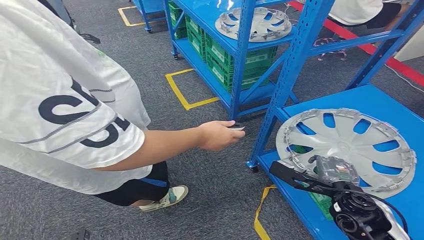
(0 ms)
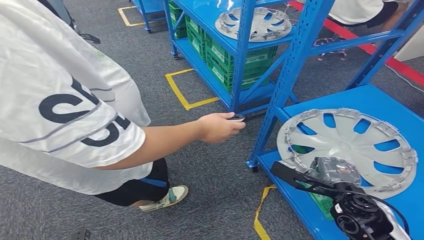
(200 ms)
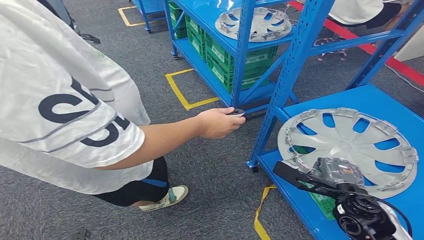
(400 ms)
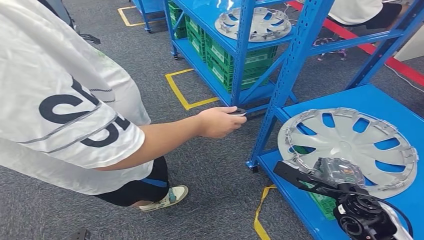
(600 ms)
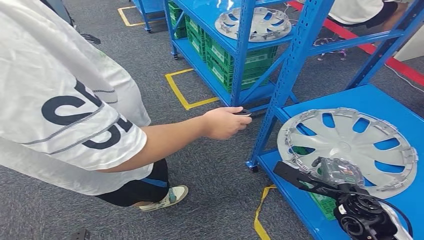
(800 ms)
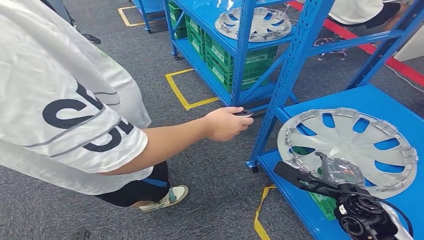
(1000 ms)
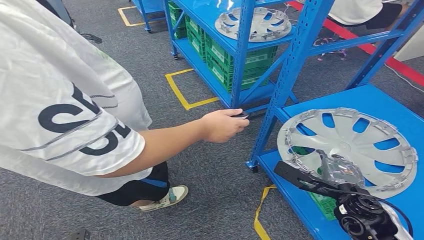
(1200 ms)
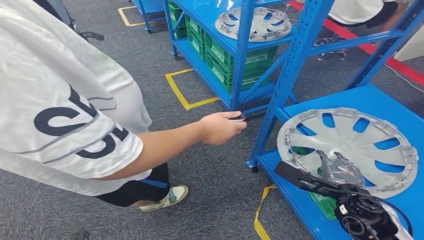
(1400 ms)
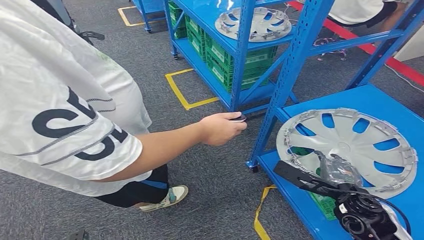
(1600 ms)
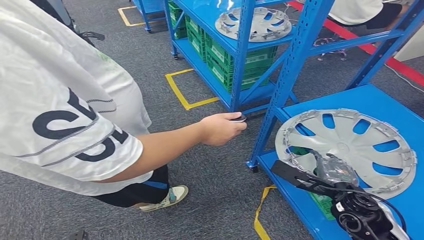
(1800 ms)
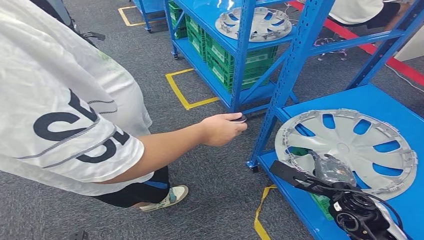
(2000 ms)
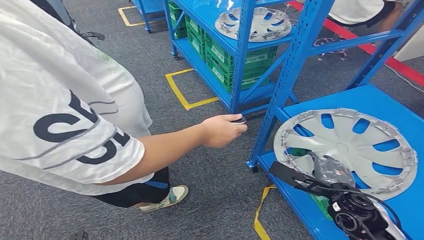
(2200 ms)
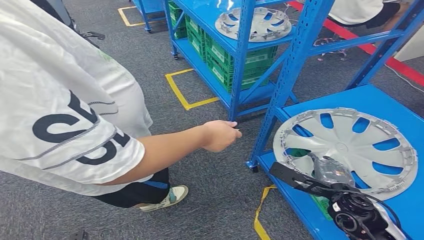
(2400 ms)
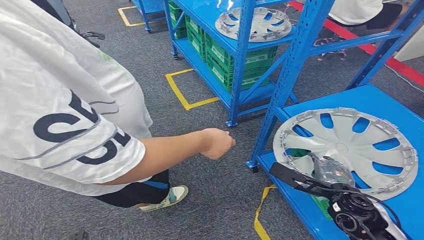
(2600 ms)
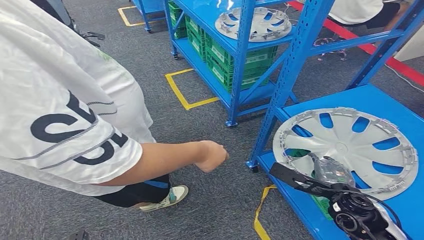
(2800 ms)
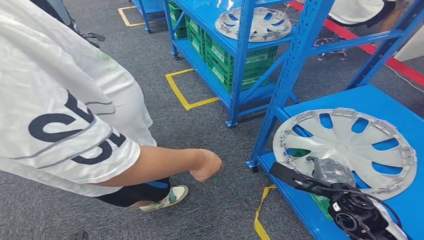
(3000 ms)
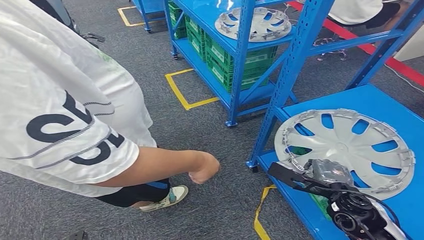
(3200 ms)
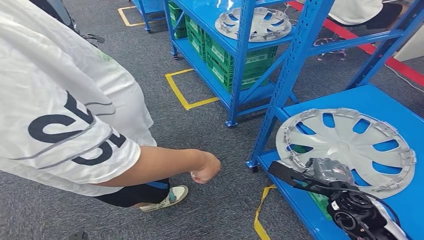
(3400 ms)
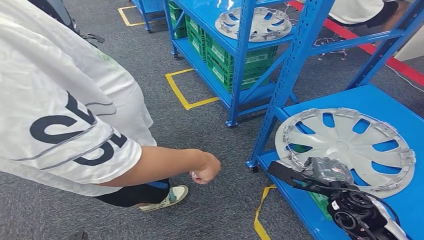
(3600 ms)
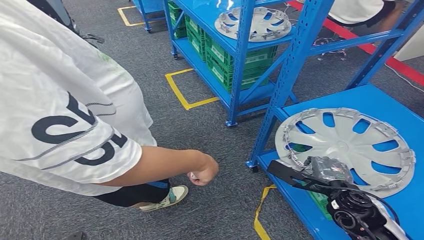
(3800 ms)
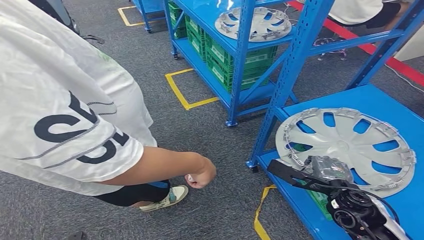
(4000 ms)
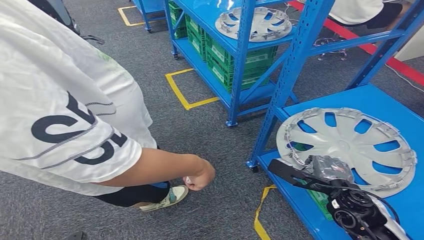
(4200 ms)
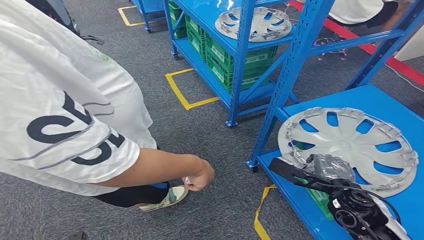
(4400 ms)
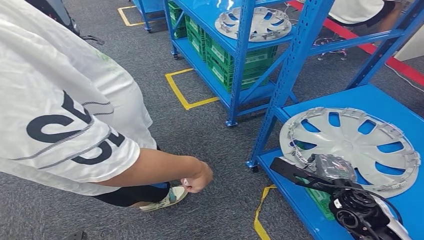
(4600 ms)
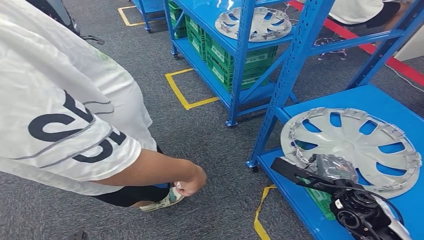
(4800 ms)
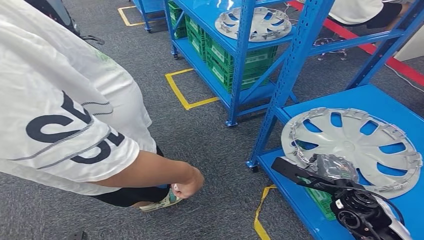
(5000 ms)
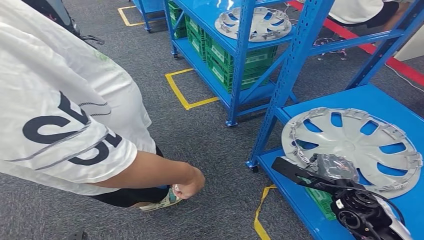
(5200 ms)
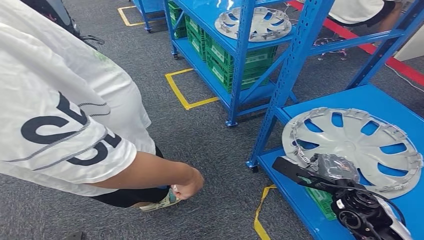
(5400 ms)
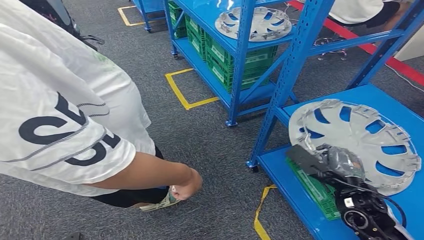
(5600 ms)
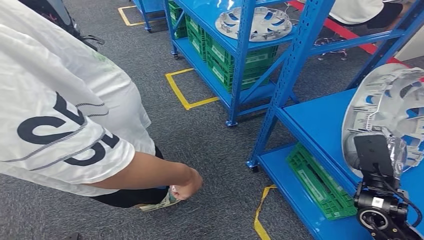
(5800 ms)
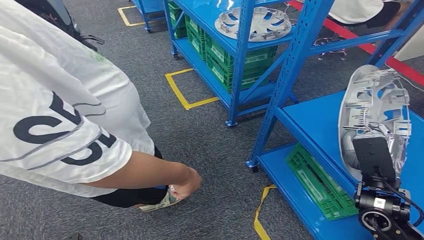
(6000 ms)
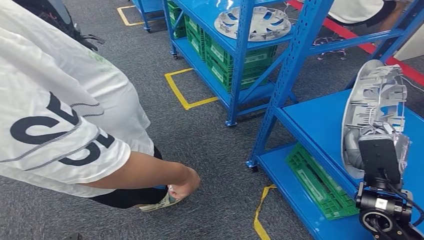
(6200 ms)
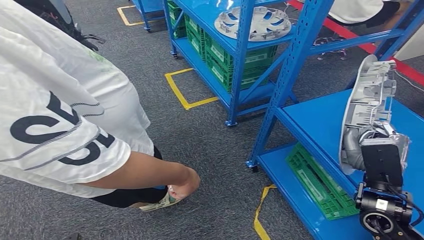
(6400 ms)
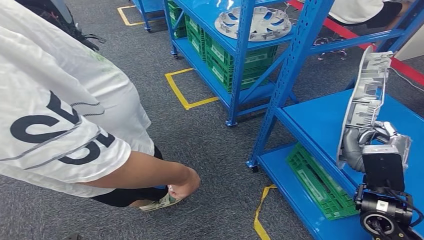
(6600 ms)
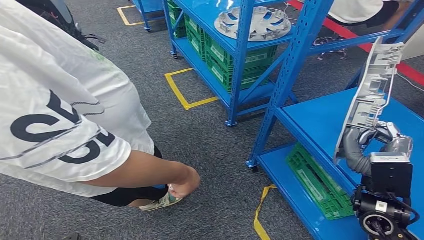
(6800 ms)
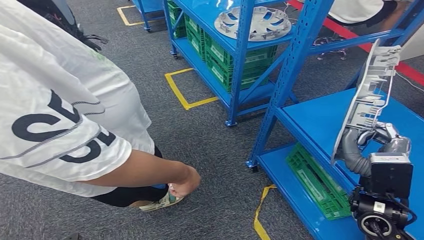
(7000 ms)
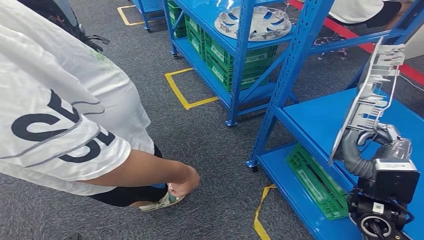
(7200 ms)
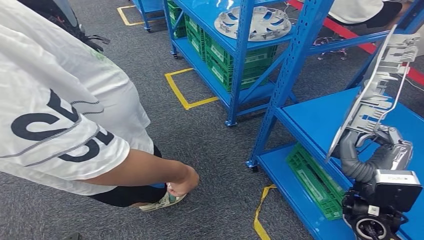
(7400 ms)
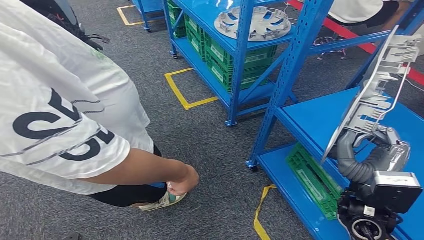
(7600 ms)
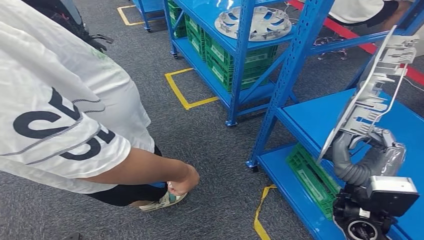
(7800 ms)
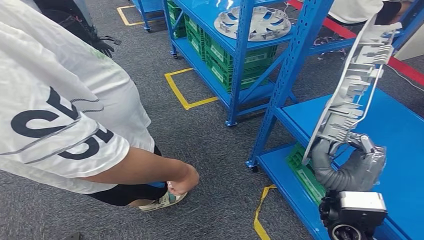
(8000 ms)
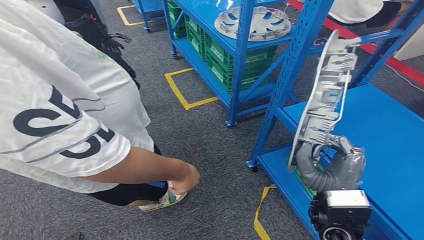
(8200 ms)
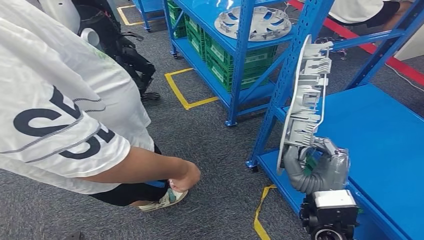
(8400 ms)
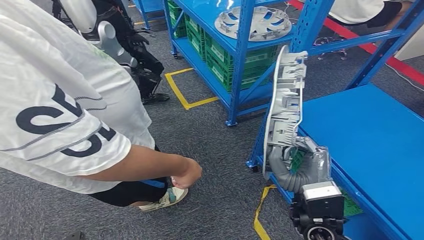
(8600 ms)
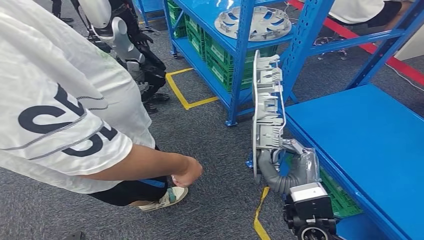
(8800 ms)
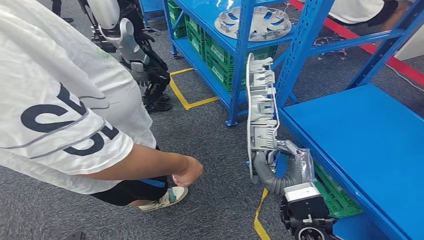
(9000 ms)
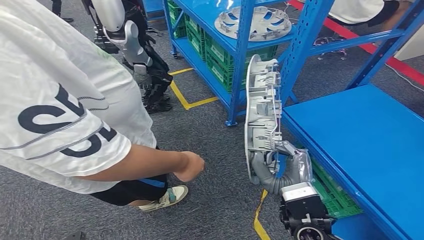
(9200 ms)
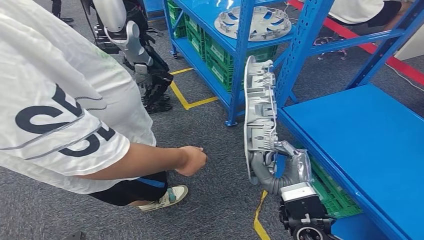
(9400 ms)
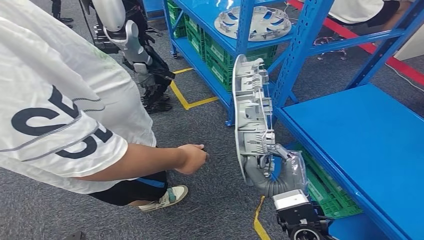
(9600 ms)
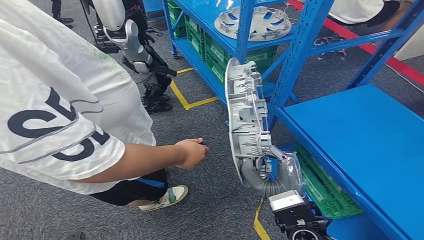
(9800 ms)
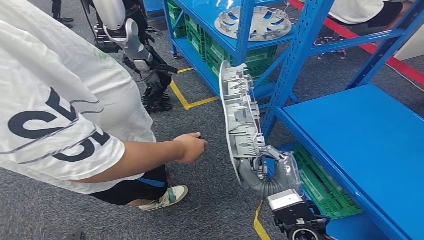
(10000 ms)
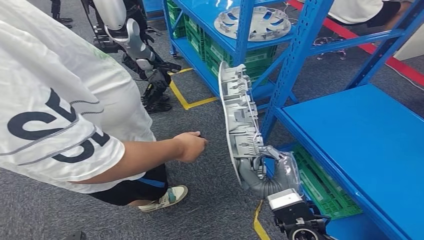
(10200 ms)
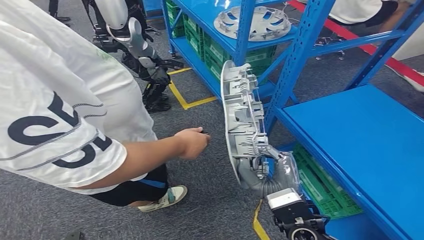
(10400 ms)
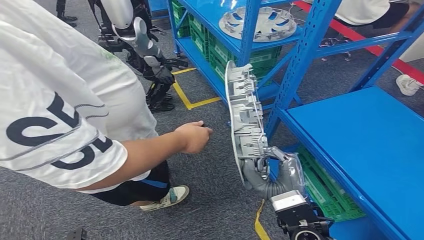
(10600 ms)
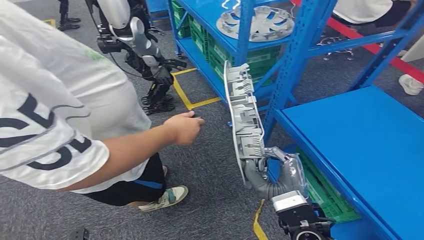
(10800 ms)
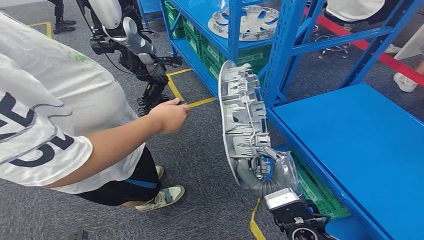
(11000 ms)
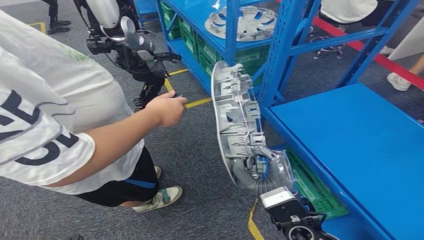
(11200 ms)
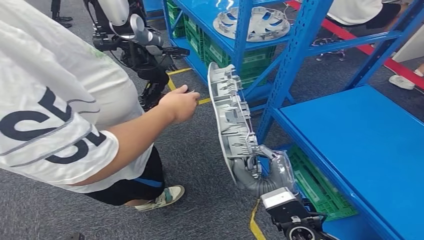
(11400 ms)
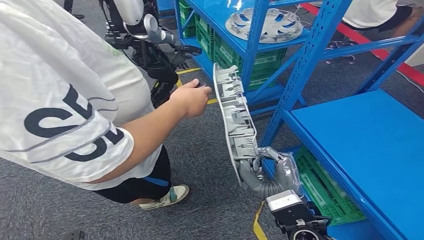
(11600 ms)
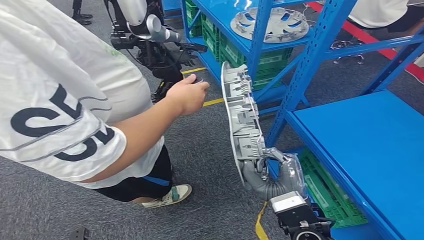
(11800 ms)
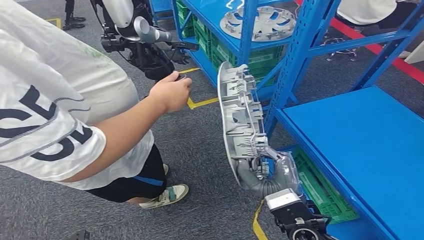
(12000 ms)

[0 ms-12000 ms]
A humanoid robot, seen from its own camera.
Step, 0 ms to 9000 ms: Pick up the small parts from the shelf.
0 ms to 1600 ms: Both hands stay put.
1600 ms to 3000 ms: The hands make only small movements.
3000 ms to 4400 ms: Neither hand changes place.

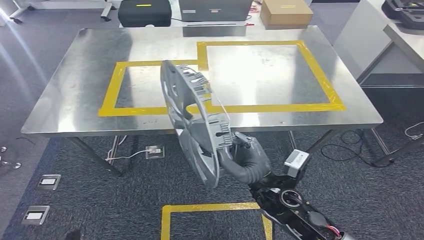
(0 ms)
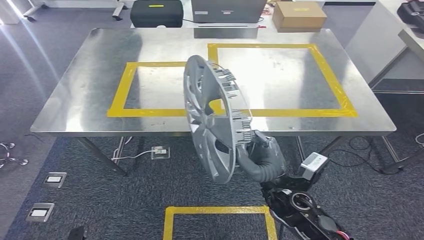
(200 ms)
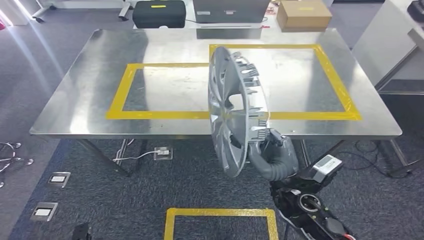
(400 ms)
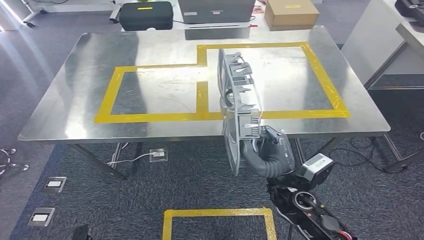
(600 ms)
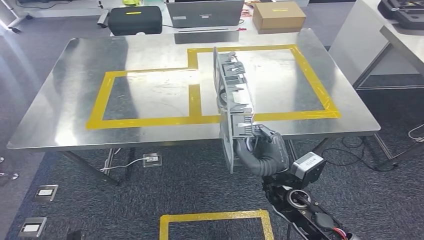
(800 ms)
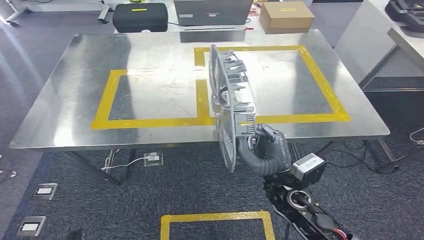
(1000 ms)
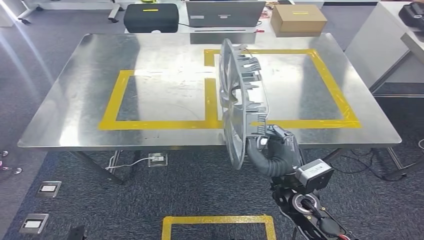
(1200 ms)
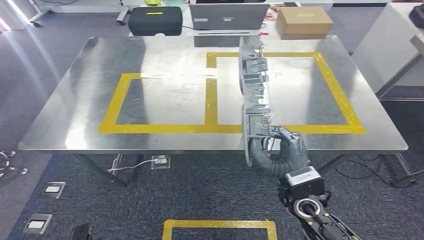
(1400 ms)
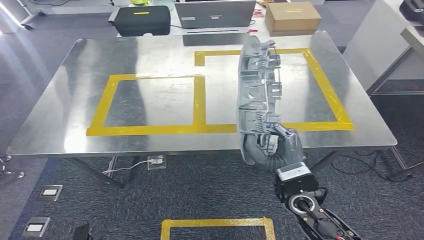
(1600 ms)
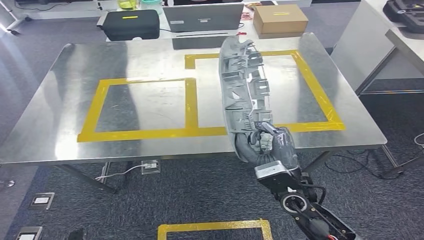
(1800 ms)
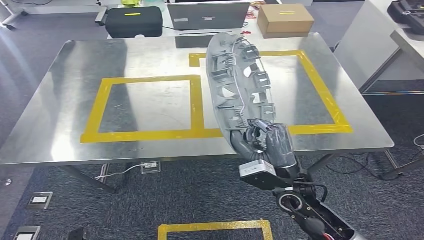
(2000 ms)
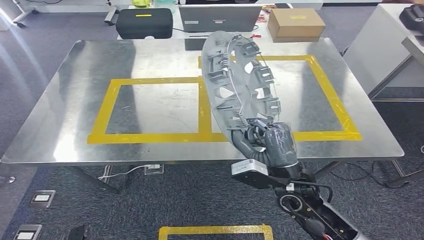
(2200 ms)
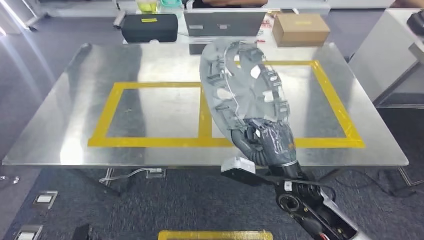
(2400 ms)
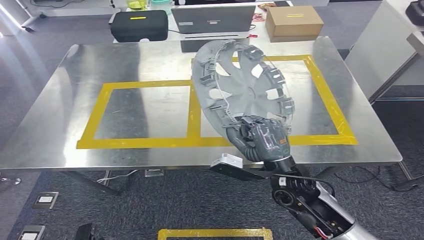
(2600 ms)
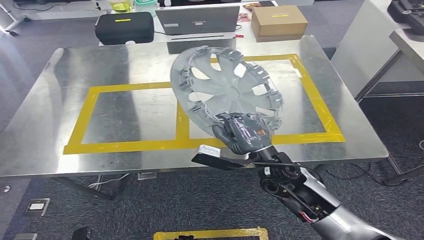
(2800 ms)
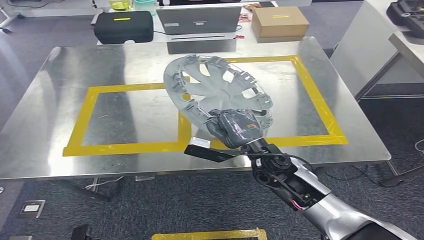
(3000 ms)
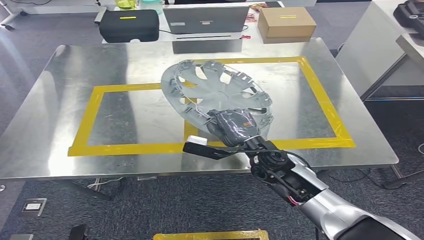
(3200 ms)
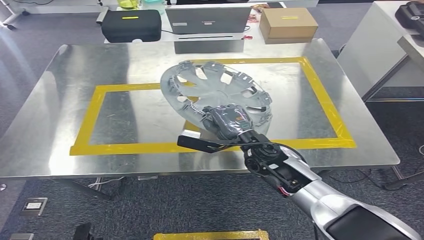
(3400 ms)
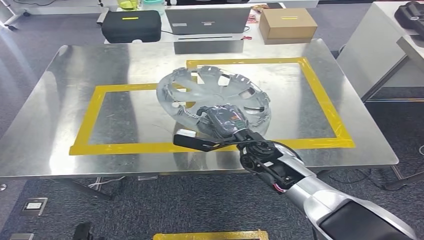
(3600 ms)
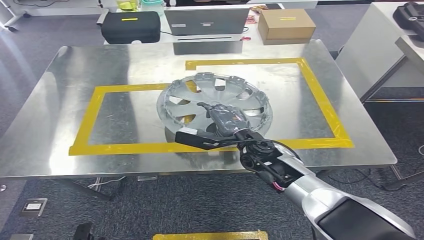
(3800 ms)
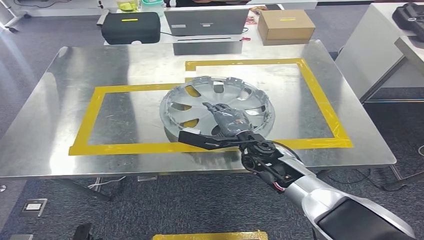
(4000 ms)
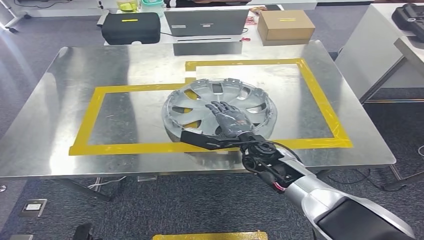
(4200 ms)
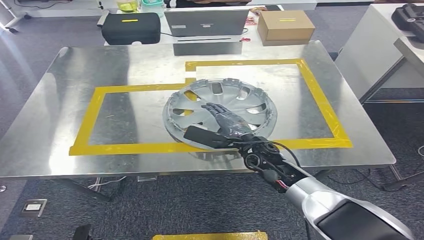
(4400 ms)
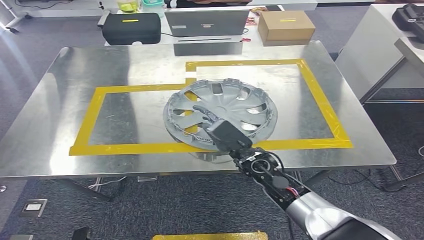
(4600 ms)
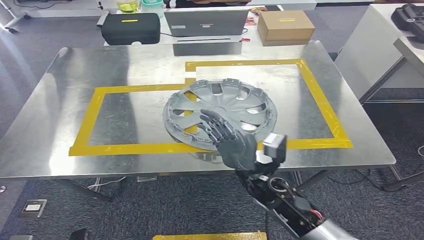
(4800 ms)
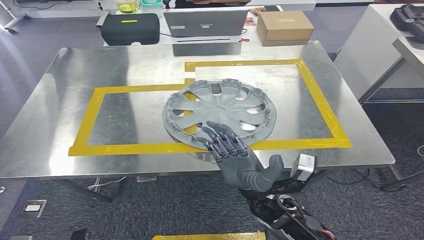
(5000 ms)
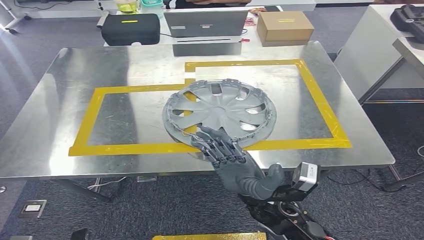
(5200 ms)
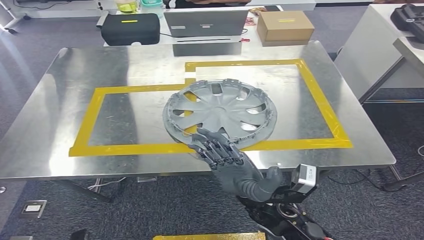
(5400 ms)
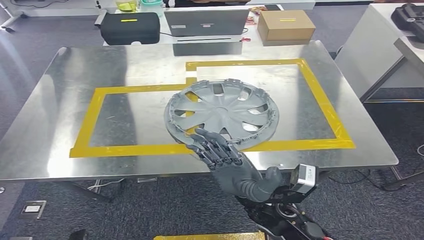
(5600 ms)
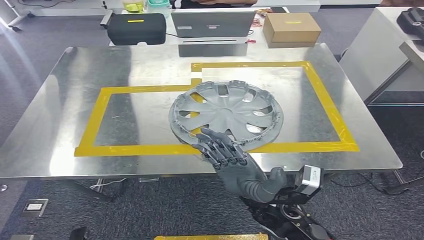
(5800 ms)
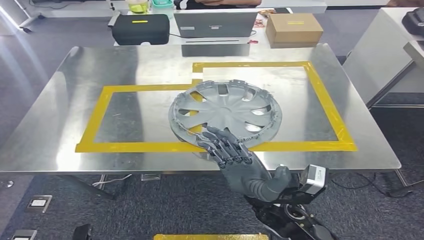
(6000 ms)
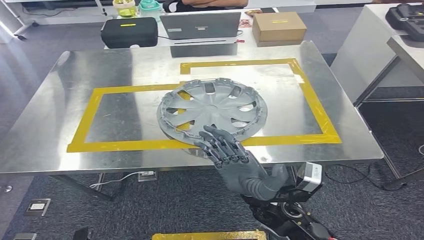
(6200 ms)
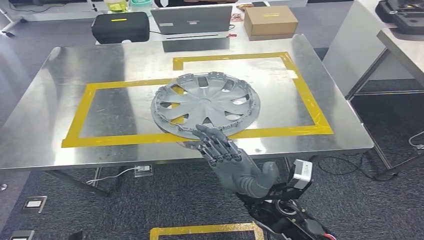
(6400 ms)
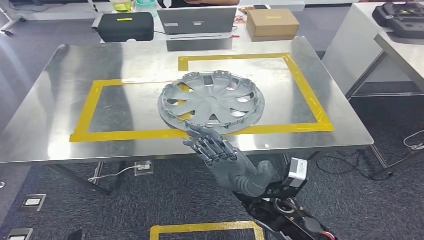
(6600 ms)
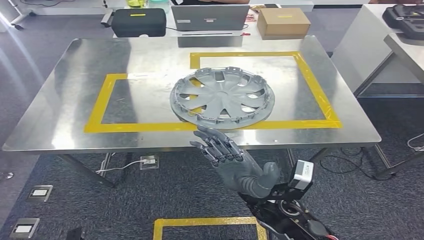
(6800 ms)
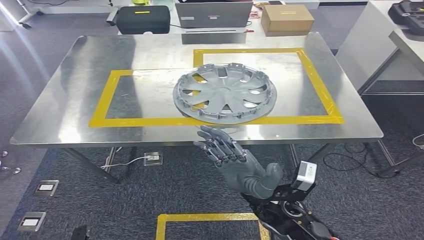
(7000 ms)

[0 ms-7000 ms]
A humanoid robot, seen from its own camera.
Step, 0 ms to 3200 ms: Move the small parts to the workbench.
4200 ms to 5600 ms: The right hand shifts approximately 15 cm backward.
